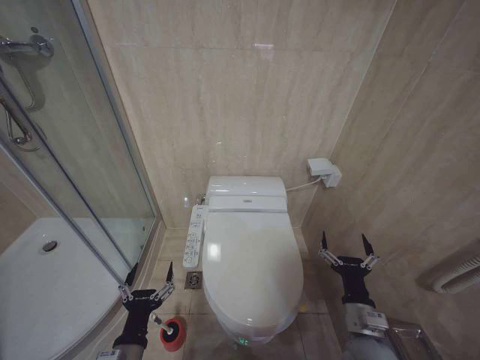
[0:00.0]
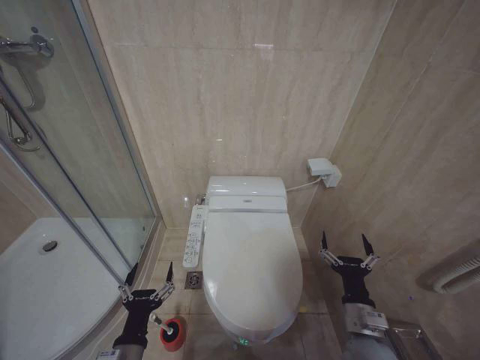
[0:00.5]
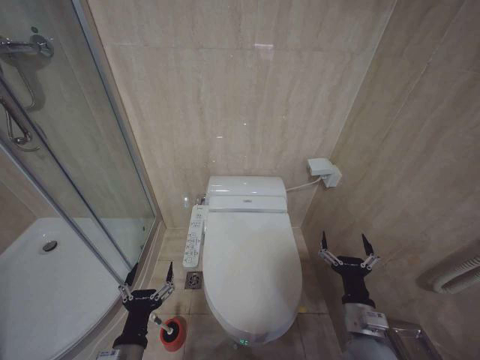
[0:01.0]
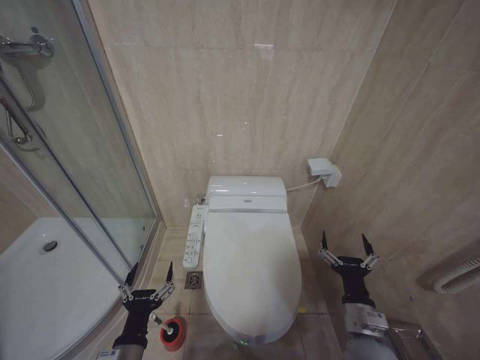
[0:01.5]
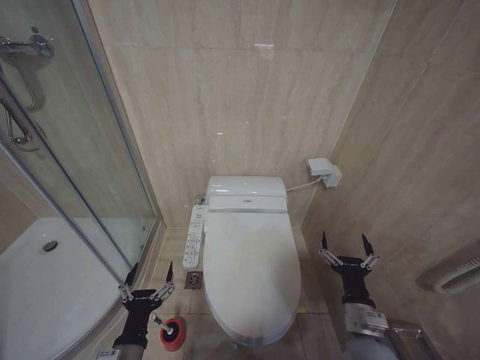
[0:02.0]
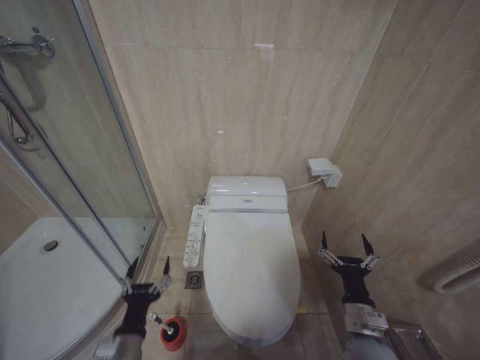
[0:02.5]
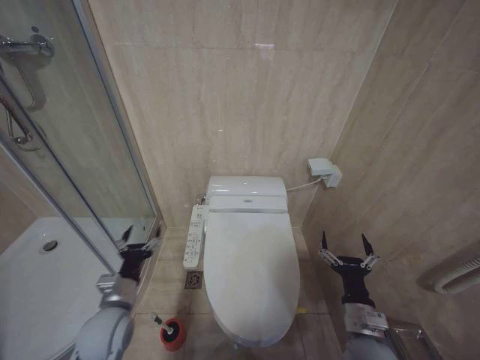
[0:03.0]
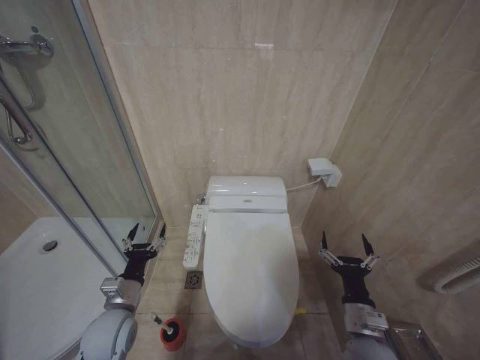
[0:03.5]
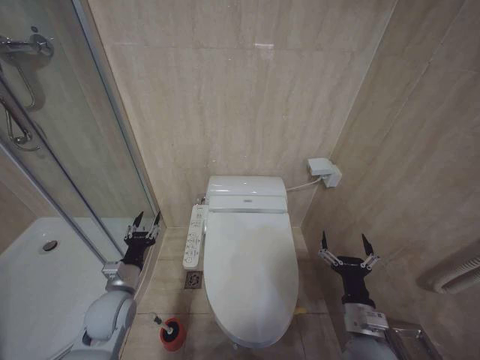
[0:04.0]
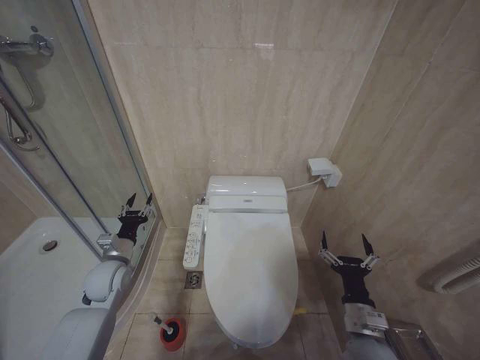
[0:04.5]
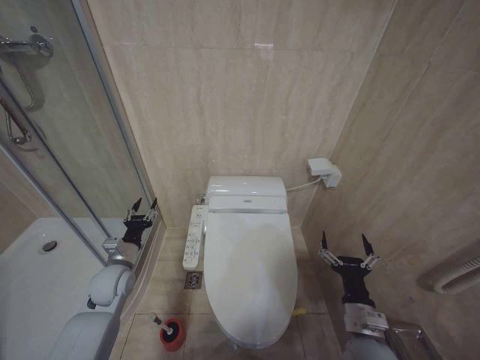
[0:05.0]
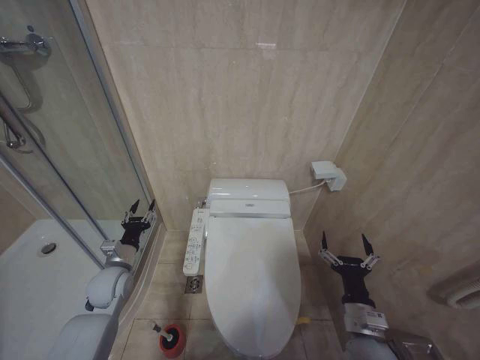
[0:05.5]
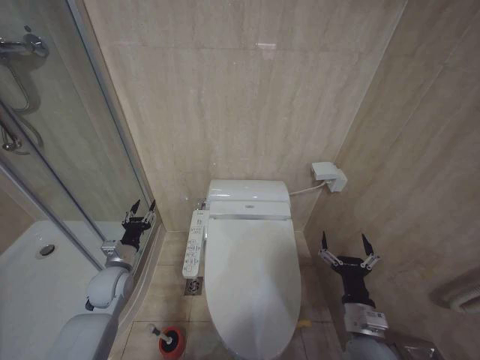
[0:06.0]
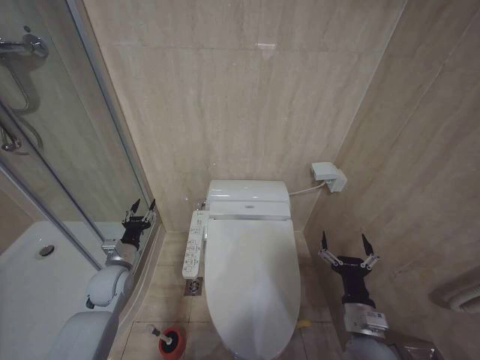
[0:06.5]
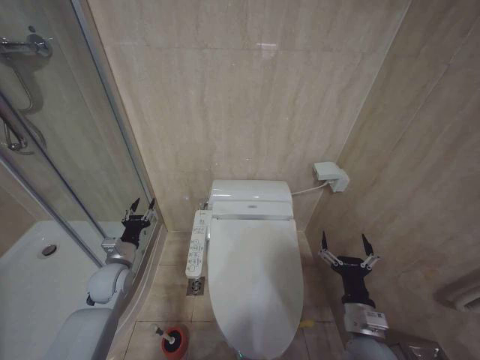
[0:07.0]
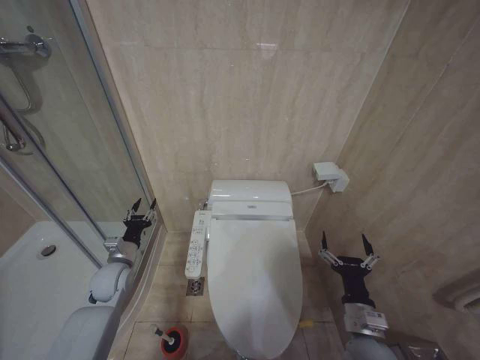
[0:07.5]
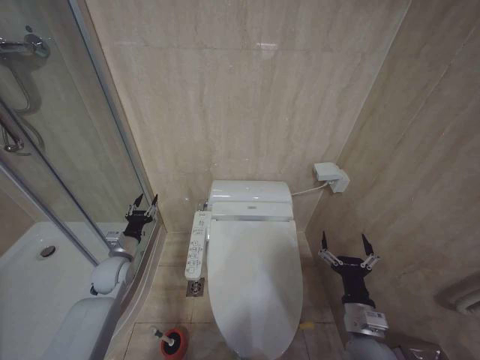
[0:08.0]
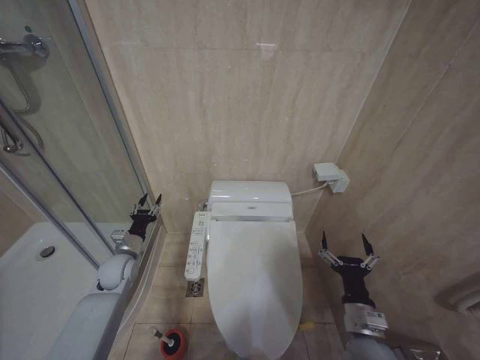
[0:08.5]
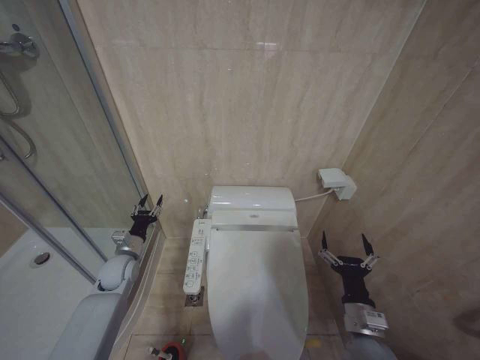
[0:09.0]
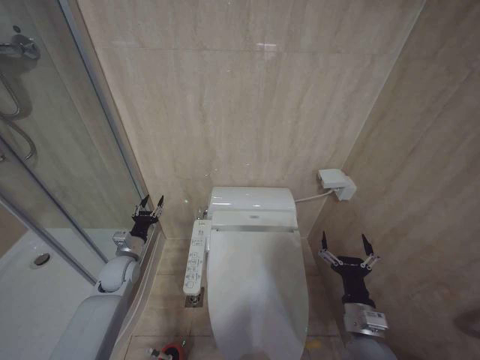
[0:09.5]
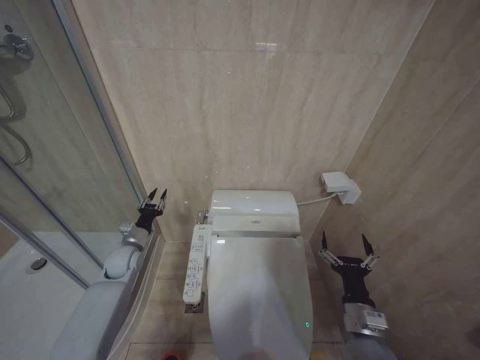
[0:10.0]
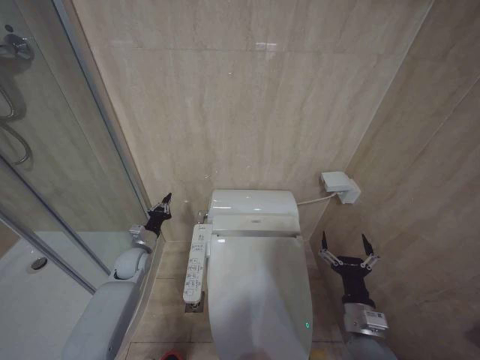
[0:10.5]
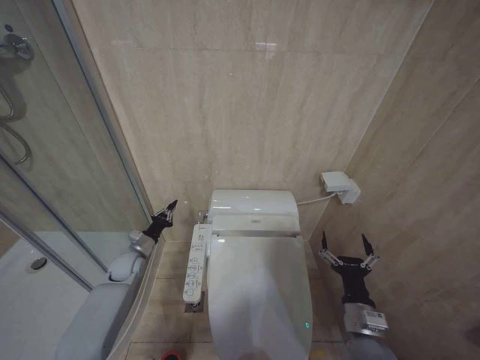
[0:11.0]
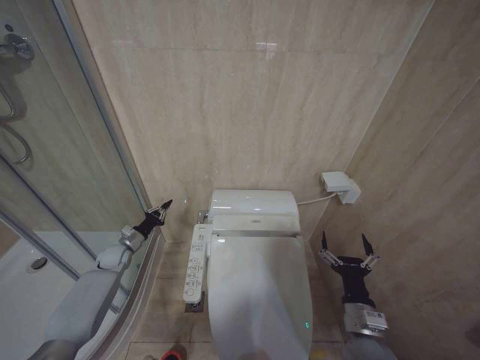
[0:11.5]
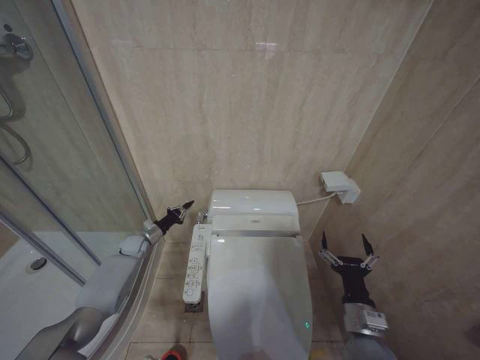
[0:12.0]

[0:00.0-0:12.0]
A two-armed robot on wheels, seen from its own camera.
Task of the whole recording: Open the toilet lid, clean the toilet bowl with a toilet brush, close the toilet lid, and flush.
0:00.0 to 0:02.0: Both grippers stay about where they are.
0:02.0 to 0:04.0: The left gripper shifts some 15 cm forward and to the left.
0:04.0 to 0:06.0: The left gripper shifts about 5 cm forward.
0:06.0 to 0:08.0: The grippers make only small movements.
0:08.0 to 0:10.0: There are only small adjustments of the grippers.
0:10.0 to 0:12.0: The left gripper travels forward and downward by some 10 cm, and closes its fingers.

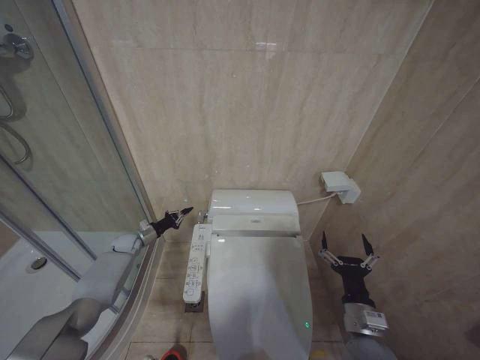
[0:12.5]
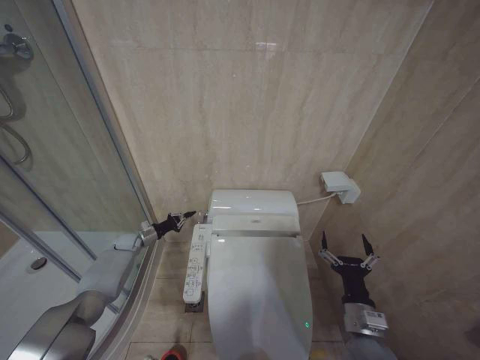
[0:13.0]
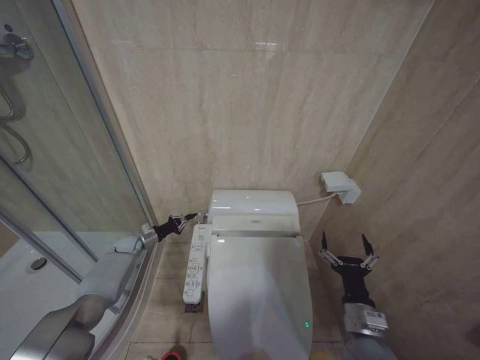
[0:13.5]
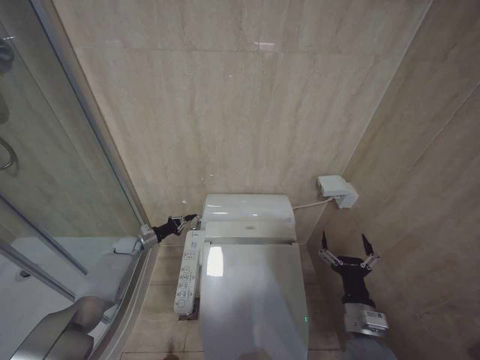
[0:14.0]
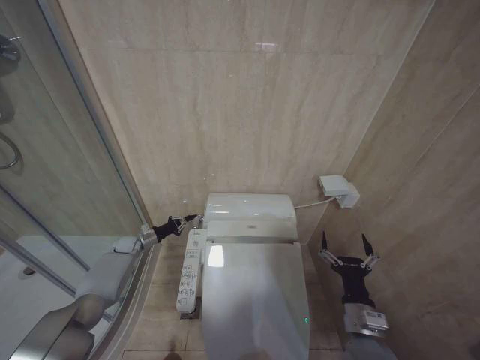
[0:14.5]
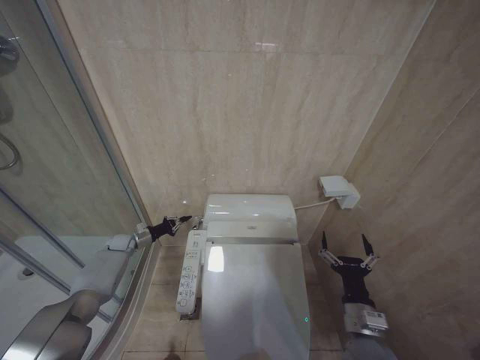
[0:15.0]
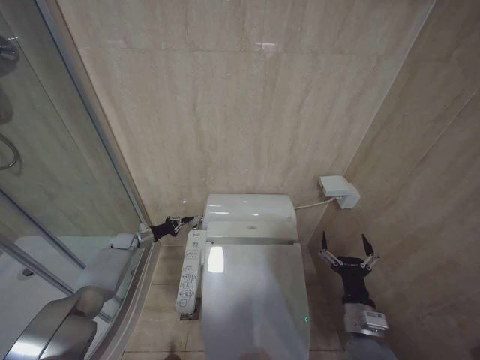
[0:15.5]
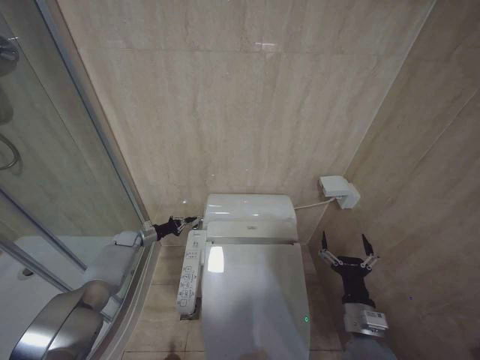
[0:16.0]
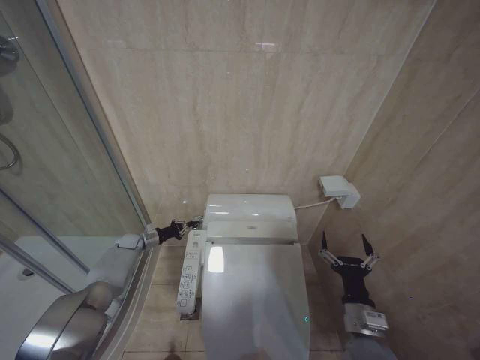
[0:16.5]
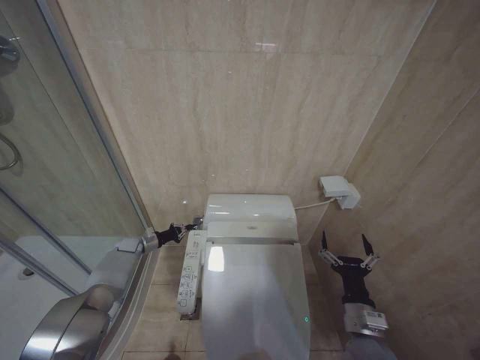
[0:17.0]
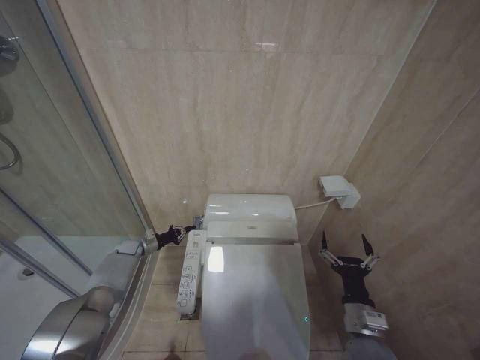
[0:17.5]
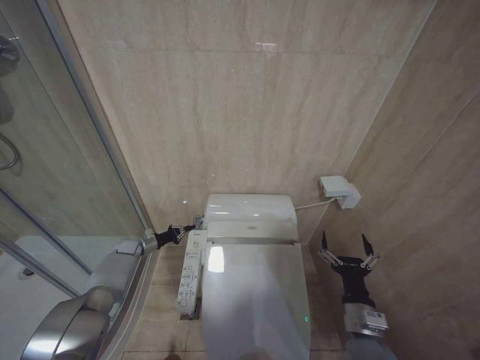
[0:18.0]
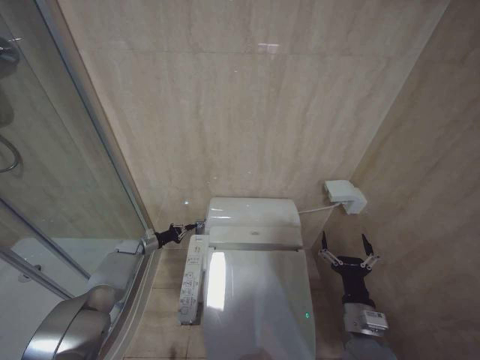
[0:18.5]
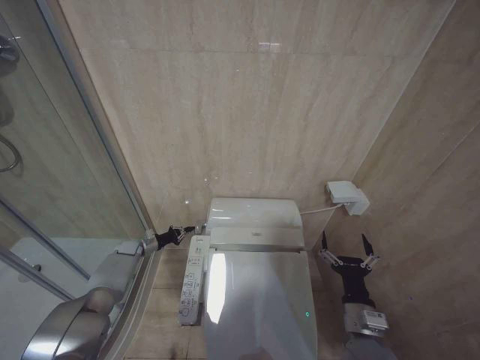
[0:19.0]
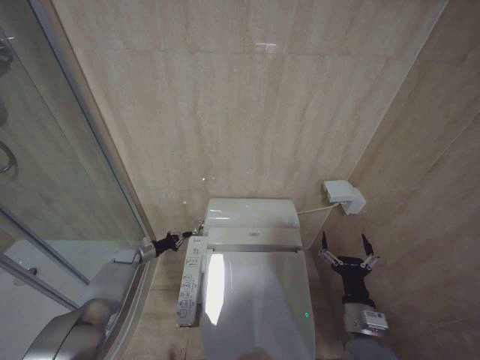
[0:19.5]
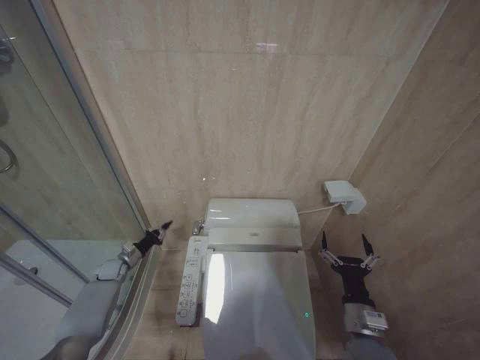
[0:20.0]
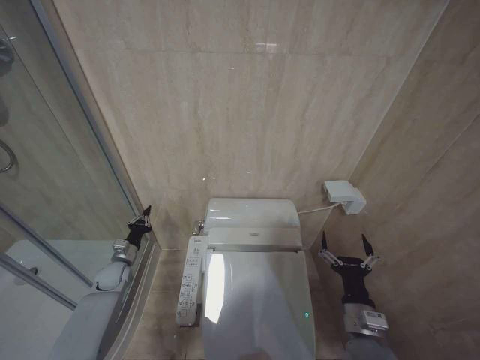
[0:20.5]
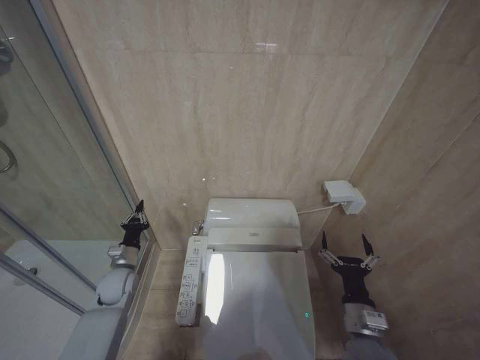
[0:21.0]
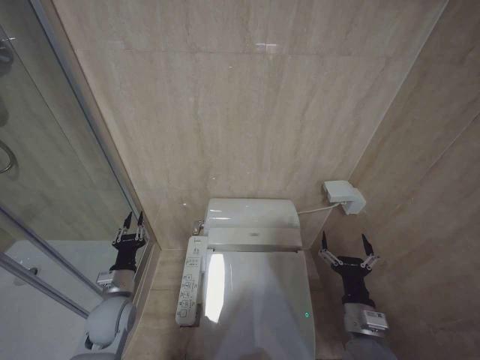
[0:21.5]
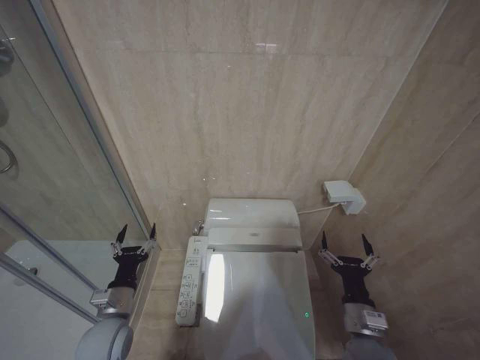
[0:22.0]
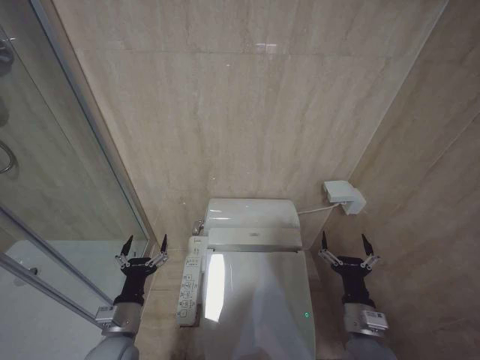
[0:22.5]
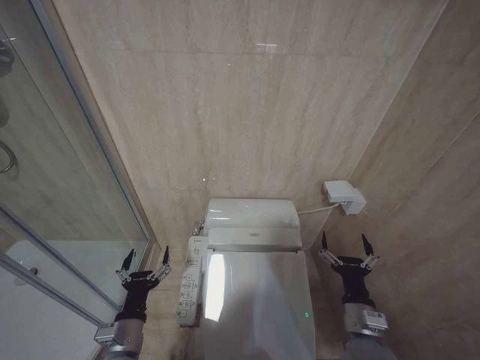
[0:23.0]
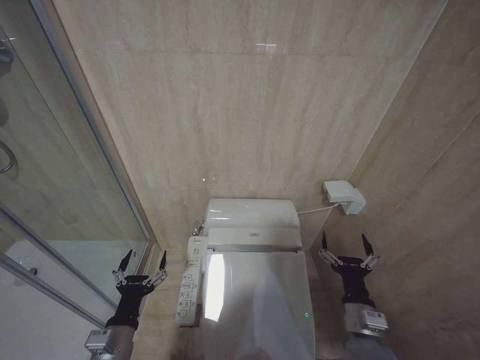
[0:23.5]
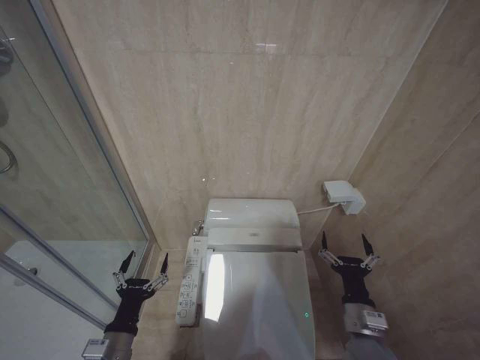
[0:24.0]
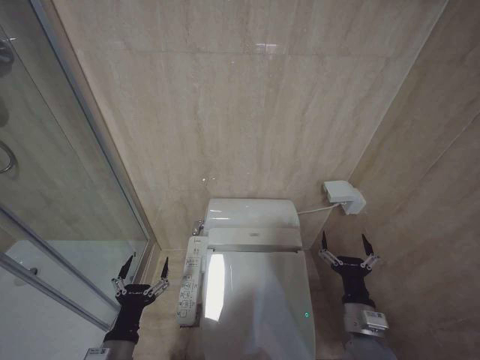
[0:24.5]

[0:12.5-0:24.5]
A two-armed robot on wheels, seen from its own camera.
Task of the whole recording: Open the toilet lid, clean the toilet bowl with a toilet brush, close the toilet lid, and flush.
0:12.5 to 0:18.5: The grippers move only a little.
0:18.5 to 0:20.5: The left gripper heads backward, covering roughly 10 cm.
0:20.5 to 0:22.5: The left gripper moves backward and to the right, about 25 cm, and opens.
0:22.5 to 0:24.5: The left gripper goes some 10 cm backward.

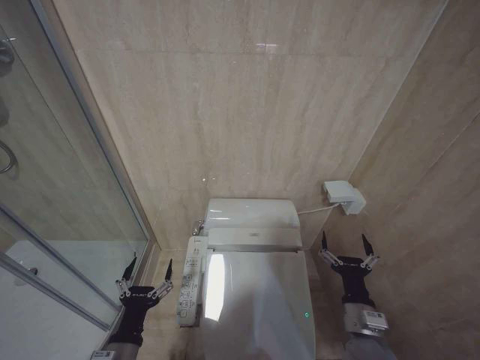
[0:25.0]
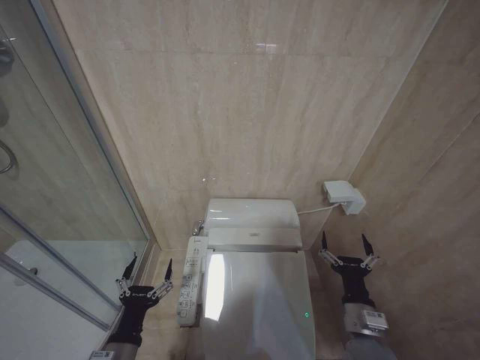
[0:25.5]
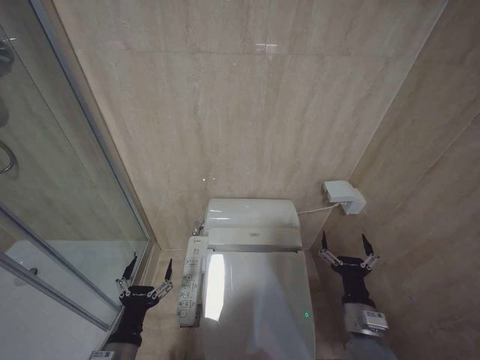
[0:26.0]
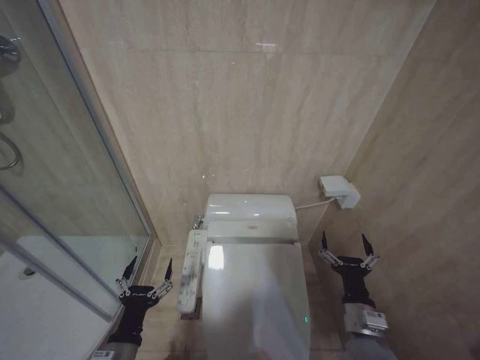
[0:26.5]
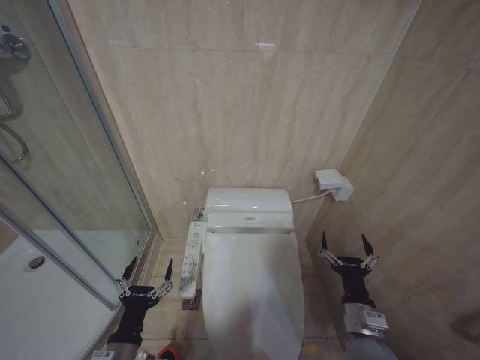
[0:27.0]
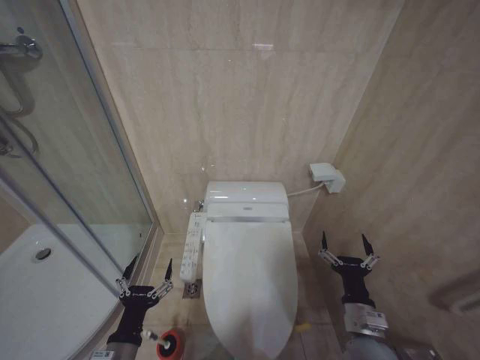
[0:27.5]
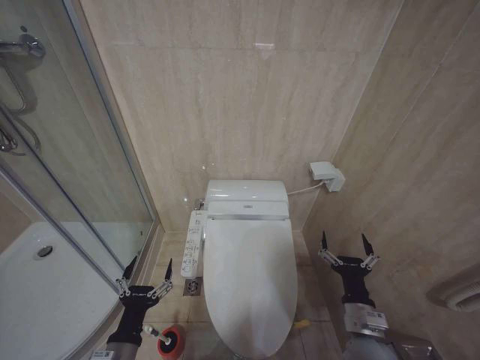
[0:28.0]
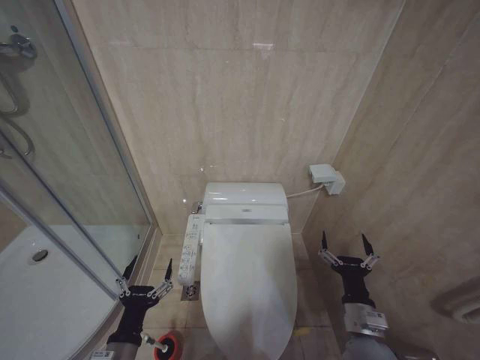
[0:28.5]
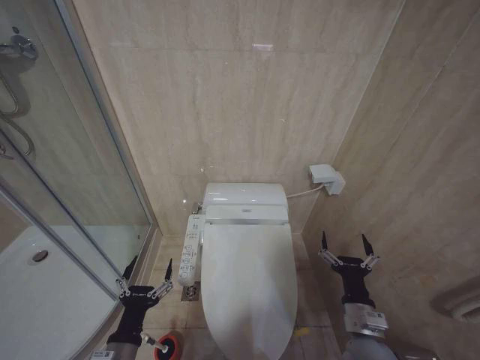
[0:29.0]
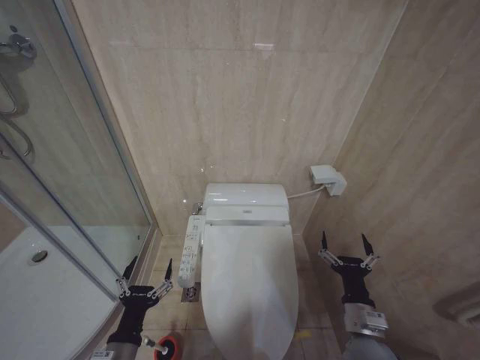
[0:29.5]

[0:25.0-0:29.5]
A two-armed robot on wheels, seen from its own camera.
Task of the whole recording: Open the toilet lid, clean the toilet bowl with a toilet brush, close the toilet lid, and flush.
0:25.0 to 0:29.5: The two grippers keep their place.
